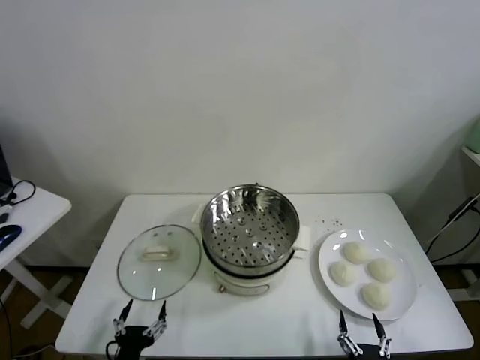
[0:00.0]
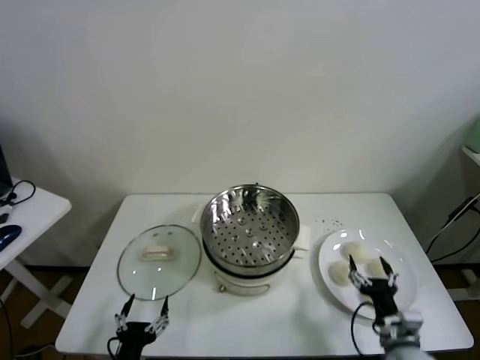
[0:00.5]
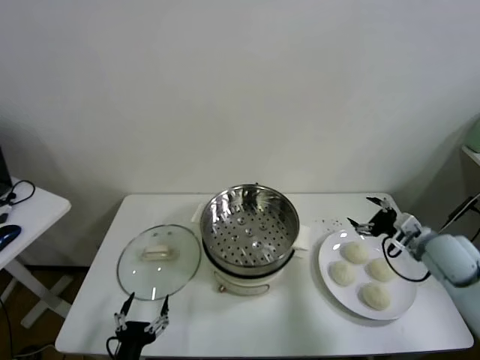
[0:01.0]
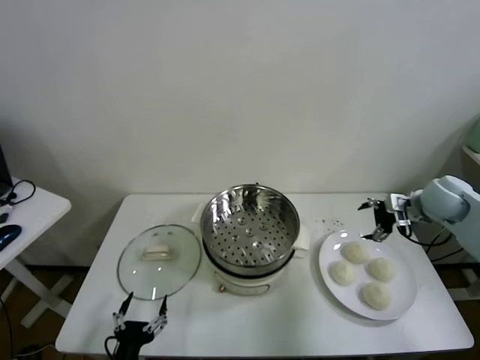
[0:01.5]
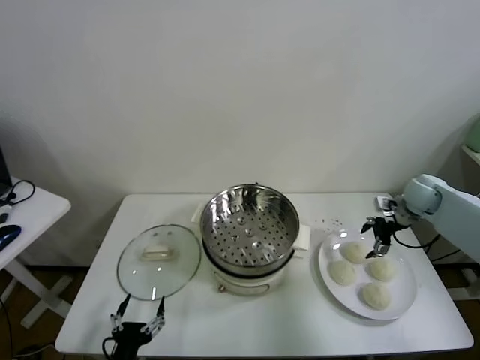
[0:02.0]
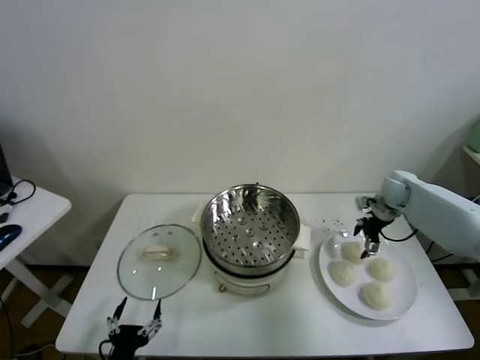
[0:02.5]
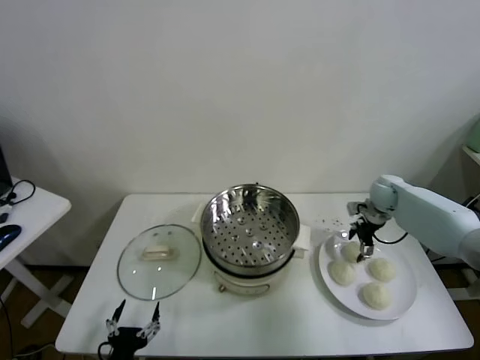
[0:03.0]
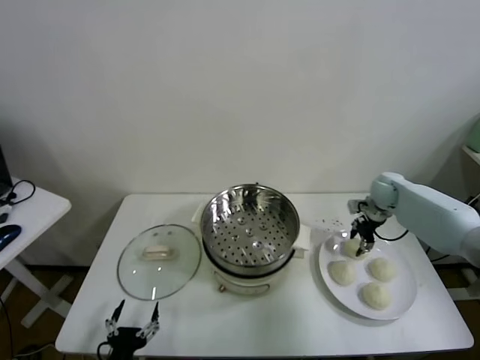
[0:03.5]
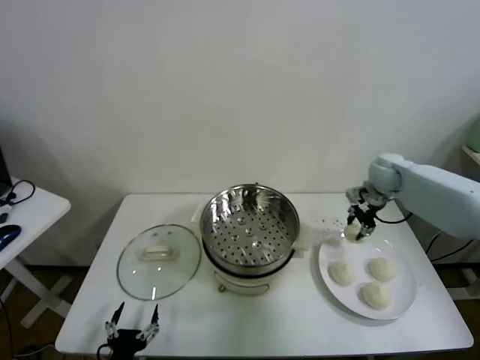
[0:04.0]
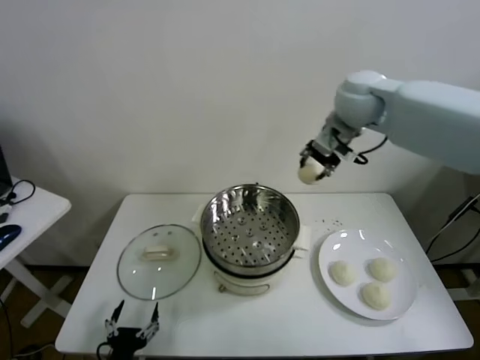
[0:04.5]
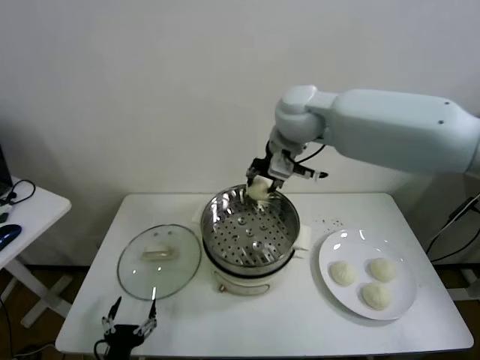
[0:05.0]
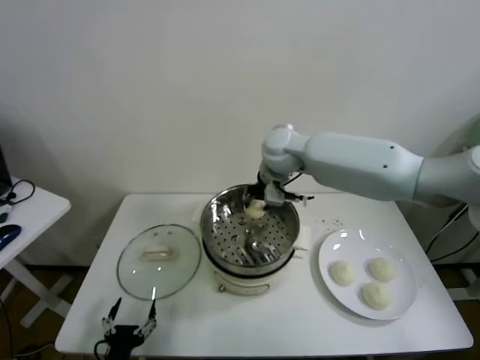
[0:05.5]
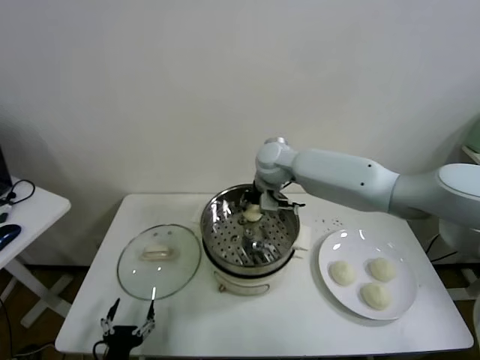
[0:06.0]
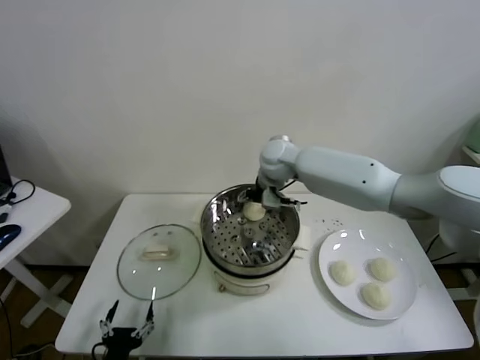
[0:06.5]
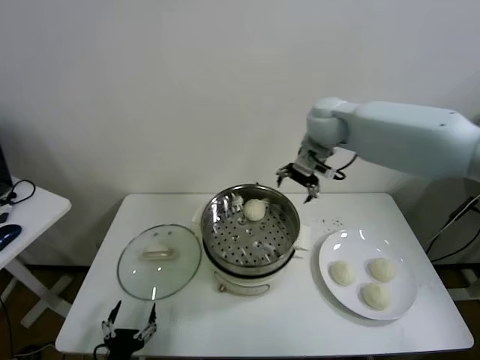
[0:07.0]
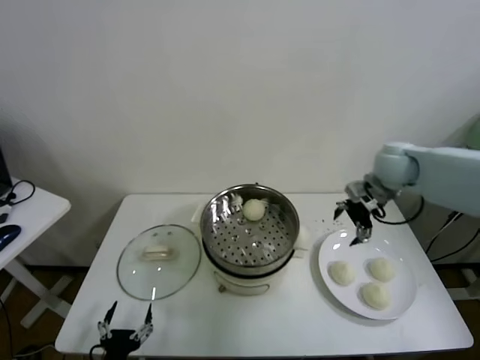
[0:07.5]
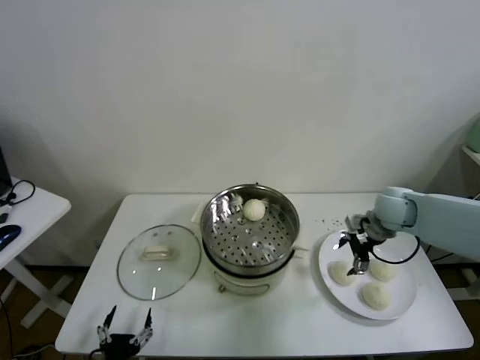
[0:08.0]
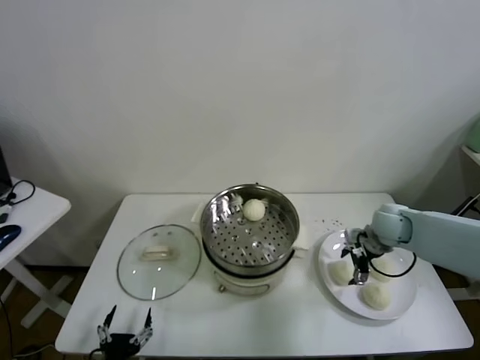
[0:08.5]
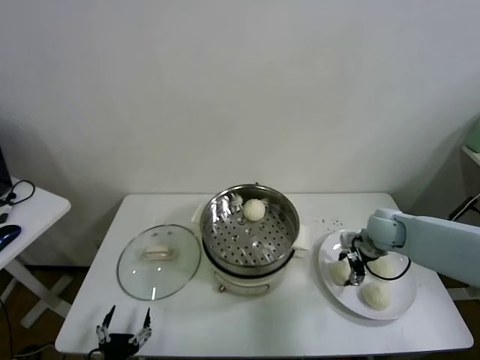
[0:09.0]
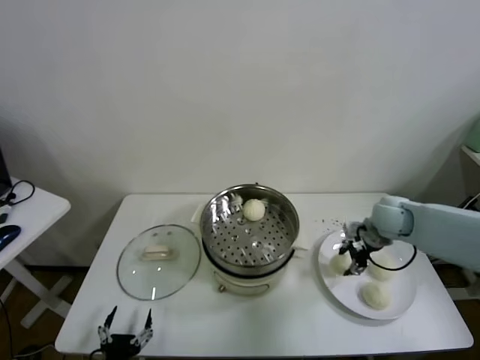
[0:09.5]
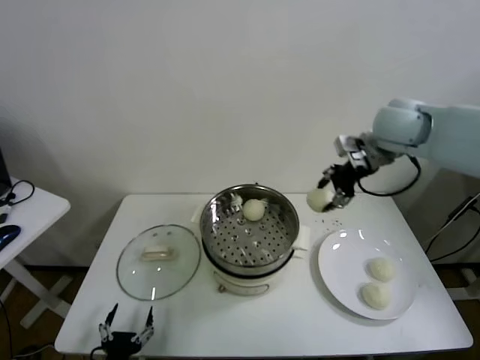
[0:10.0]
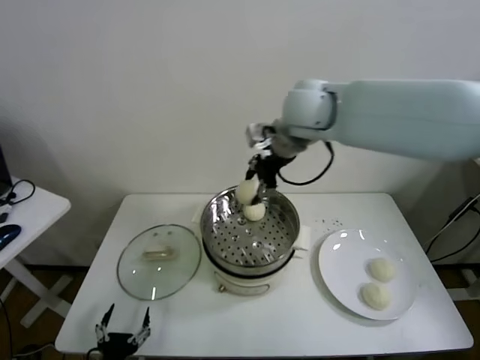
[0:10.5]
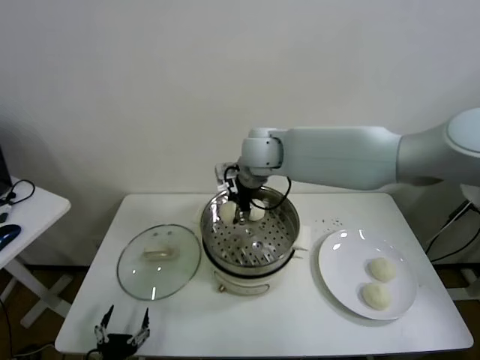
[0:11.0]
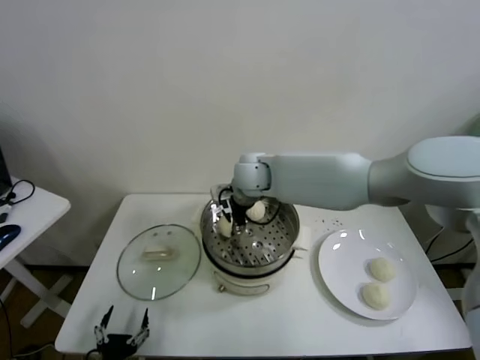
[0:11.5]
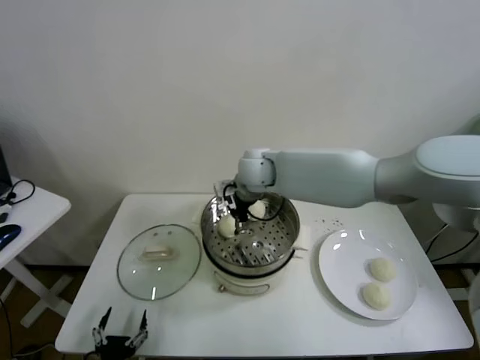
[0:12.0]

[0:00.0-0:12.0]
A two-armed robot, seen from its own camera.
Task of the whole recording: take steamed baozi put them in steamer.
Step, 0:00.0 to 0:03.0: Grasp the baozi in the plate with right gripper.
Step, 0:03.5 to 0:06.5: Place the baozi on the steamer with right gripper.
Step, 0:07.0 to 0:09.0: Grasp the baozi in the plate with right gripper.
Step, 0:09.5 to 0:12.0: Place the baozi on the steamer with right gripper.
0:02.0 to 0:04.0: The right gripper shifts about 15 cm to the left and upward, and closes.
0:04.0 to 0:06.0: The right gripper shifts roughly 25 cm to the left.
0:06.0 to 0:08.0: The right gripper goes some 30 cm to the right, and opens its fingers.
0:08.0 to 0:10.0: The right gripper goes some 25 cm upward, and closes its fingers.
0:10.0 to 0:12.0: The right gripper goes some 30 cm to the left and downward, and opens its fingers.

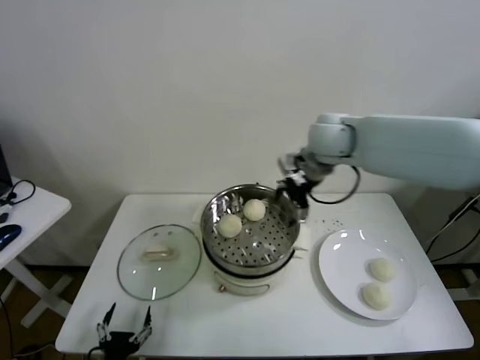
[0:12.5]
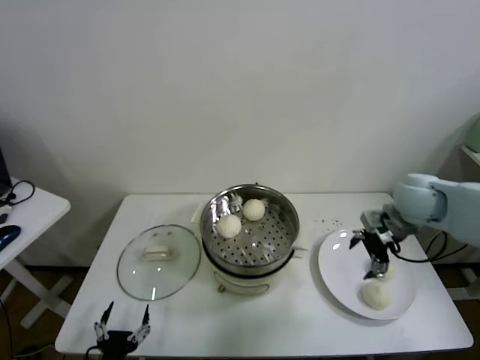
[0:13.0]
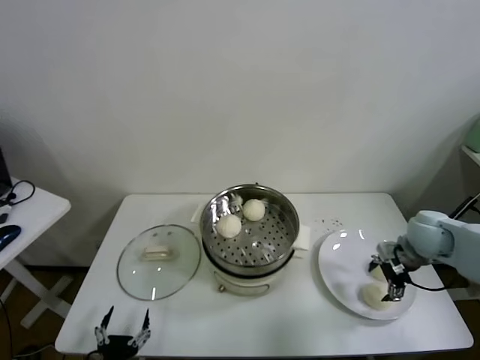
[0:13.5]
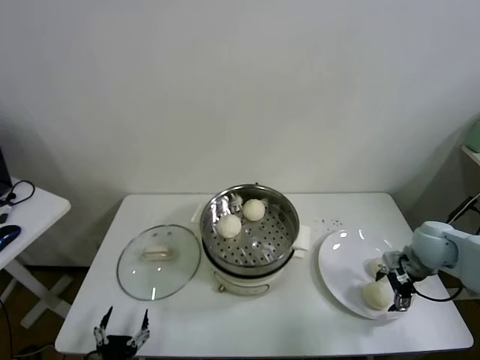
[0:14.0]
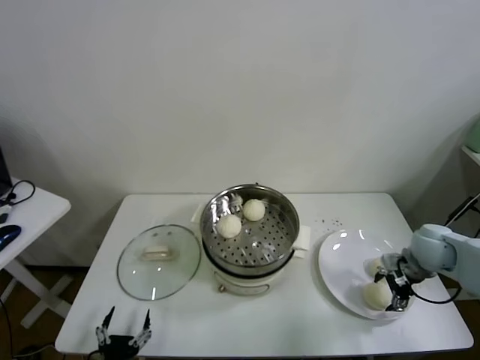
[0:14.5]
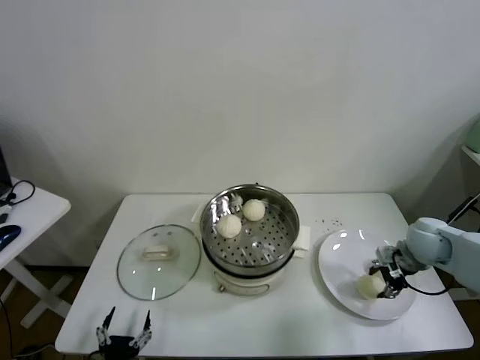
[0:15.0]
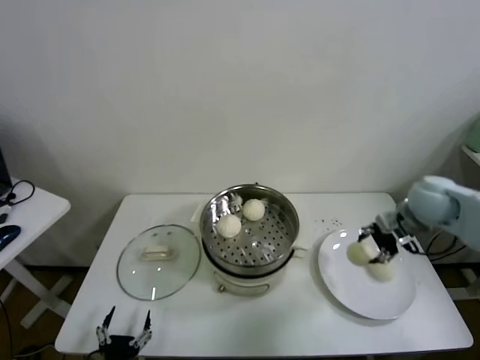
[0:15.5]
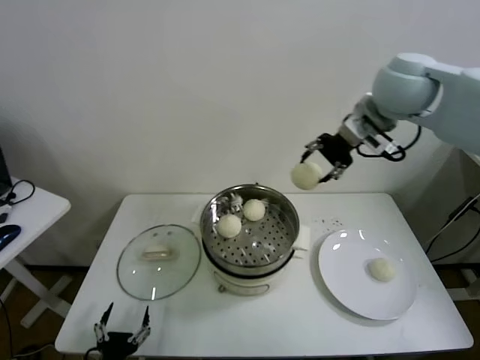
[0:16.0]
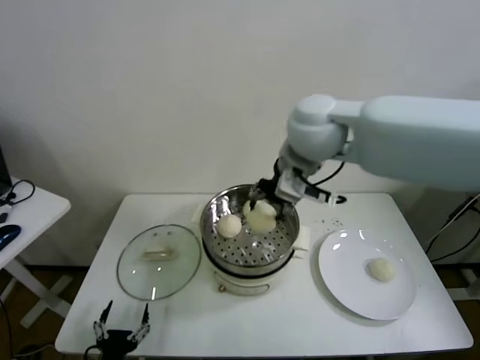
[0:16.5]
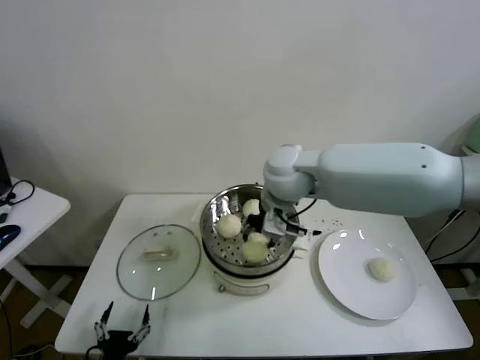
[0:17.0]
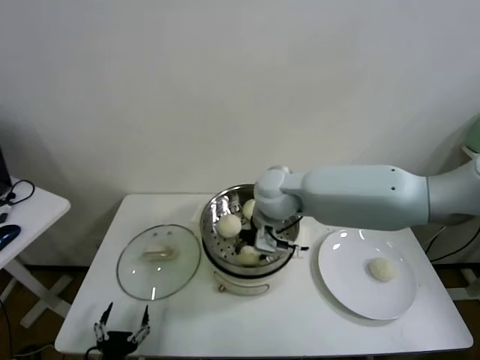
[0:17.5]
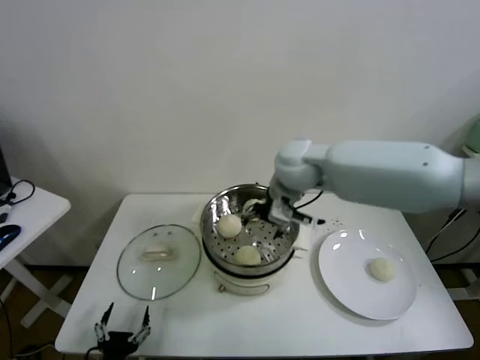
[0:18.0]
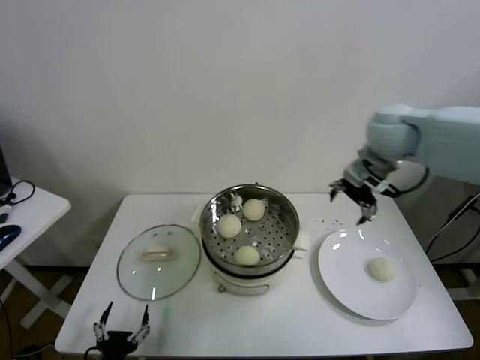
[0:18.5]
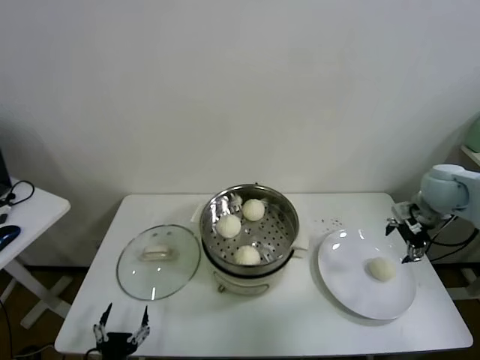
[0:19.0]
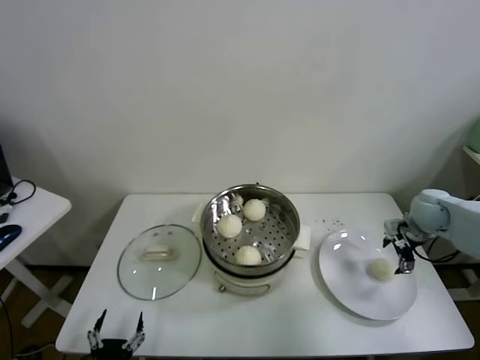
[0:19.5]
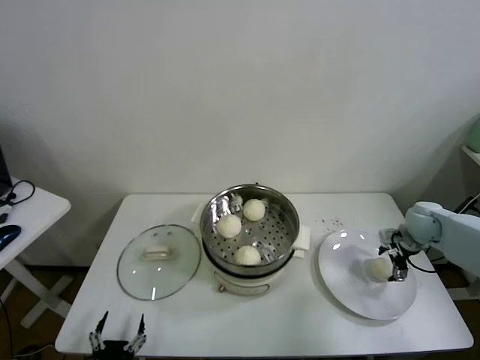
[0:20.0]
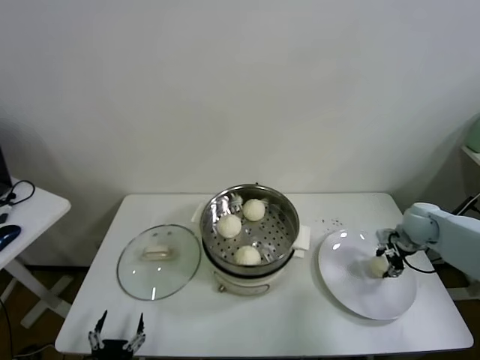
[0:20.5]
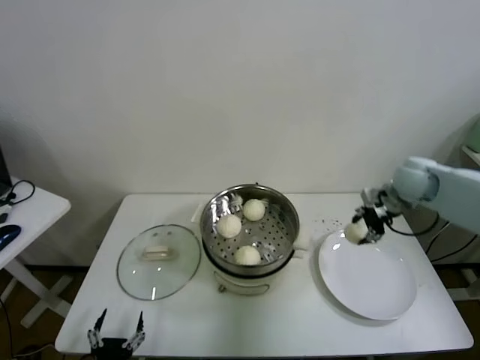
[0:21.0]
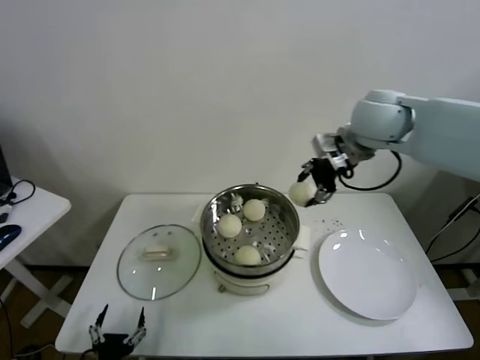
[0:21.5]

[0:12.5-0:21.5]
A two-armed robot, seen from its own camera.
Task of the whole recording: take steamed baozi put them in steamer.
Step, 0:12.5 to 0:14.5: Grasp the baozi in the plate with right gripper.
Step, 0:15.0 to 0:17.5: Place the baozi on the steamer with right gripper.
Step, 0:18.5 to 0:20.0: Grasp the baozi in the plate with right gripper.
0:12.5 to 0:14.5: The right gripper travels to the right, downward and backward by about 35 cm.
0:14.5 to 0:17.0: The right gripper shifts some 40 cm to the left and upward, and closes.
0:17.0 to 0:19.5: The right gripper goes some 40 cm to the right and downward, and opens up.
0:19.5 to 0:21.5: The right gripper is displaced upward and to the left by some 30 cm, and closes up.

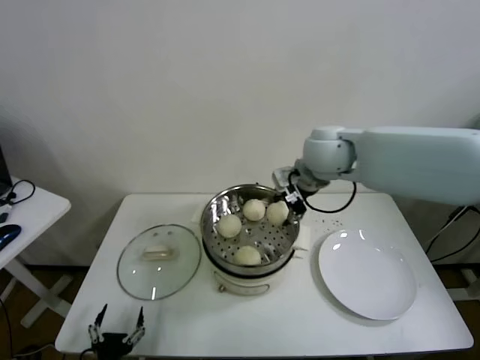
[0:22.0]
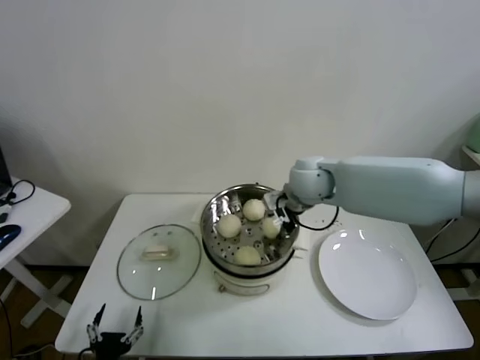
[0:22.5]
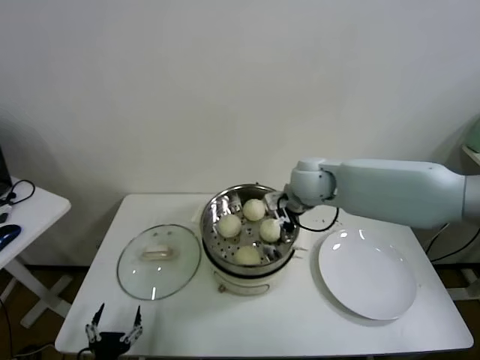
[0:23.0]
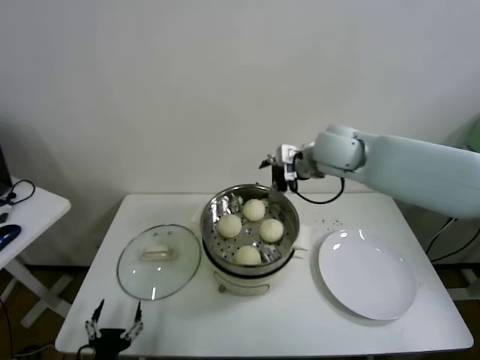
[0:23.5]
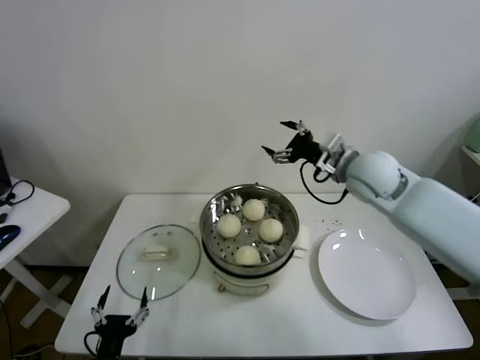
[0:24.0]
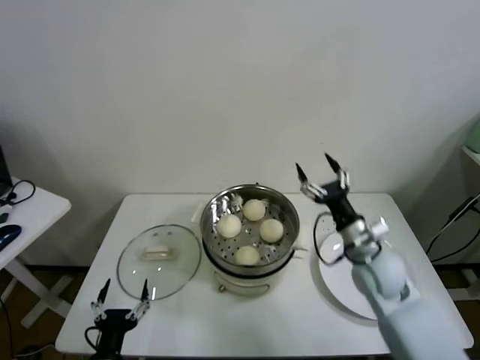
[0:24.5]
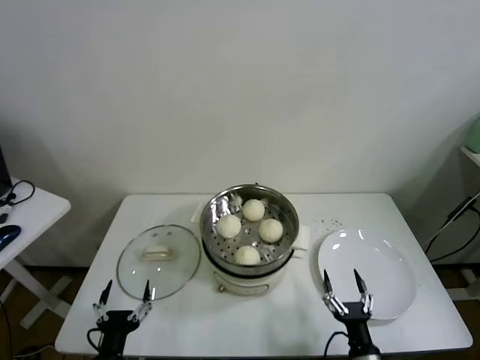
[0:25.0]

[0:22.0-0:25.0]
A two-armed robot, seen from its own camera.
Task of the whole recording: take steamed baozi put them in steamer.
0:22.0 to 0:23.5: The right gripper reaches about 10 cm downward, then returns, and opens up.
0:23.5 to 0:25.0: The right gripper shifts roughly 50 cm downward and backward.
